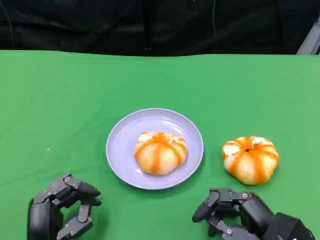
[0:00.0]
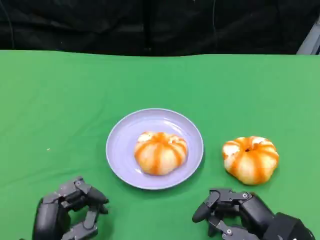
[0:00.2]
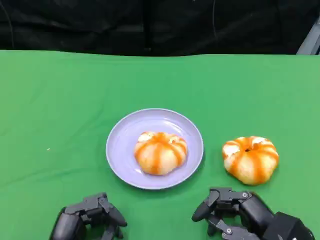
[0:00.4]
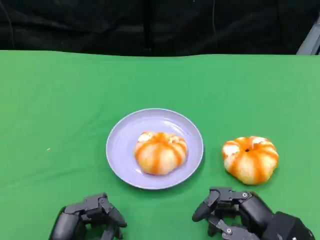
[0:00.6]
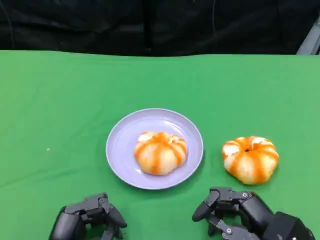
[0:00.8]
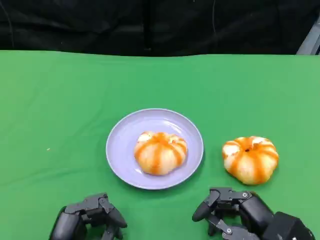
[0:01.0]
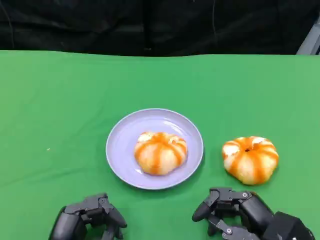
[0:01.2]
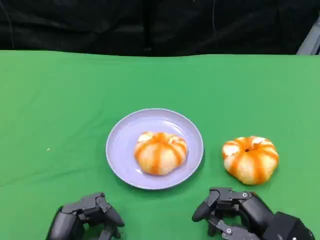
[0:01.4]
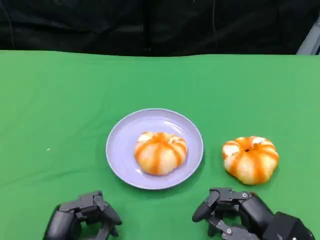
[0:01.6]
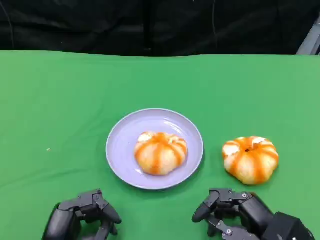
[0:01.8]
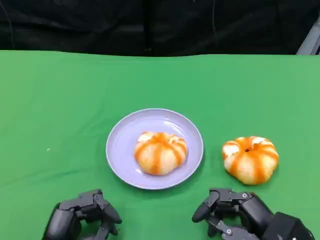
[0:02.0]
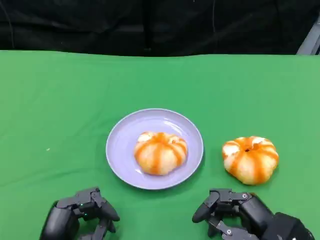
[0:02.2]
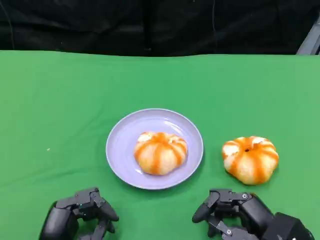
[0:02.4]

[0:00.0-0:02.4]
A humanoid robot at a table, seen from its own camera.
Task of the whole recording: Grasp the bread from the table and place it into the plate.
0:00.0 to 0:01.2: The hands stay close to where they were, moving slightly.
0:01.2 to 0:02.4: Both hands stay about where they are.

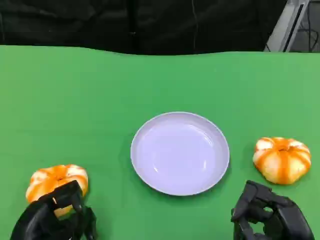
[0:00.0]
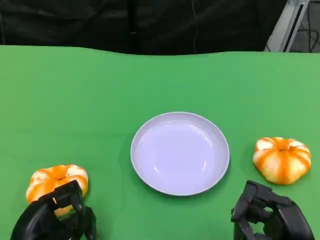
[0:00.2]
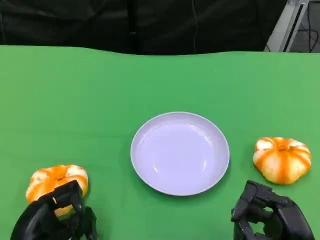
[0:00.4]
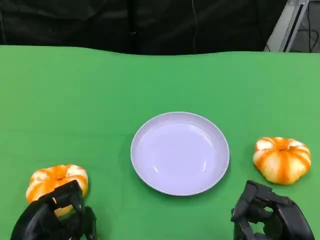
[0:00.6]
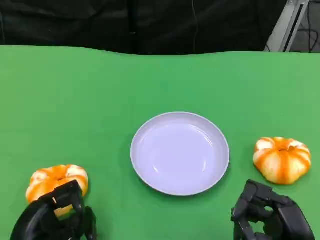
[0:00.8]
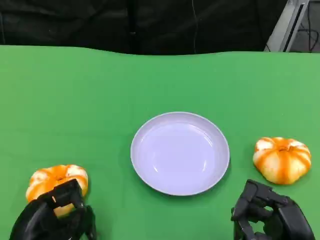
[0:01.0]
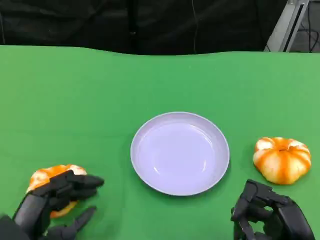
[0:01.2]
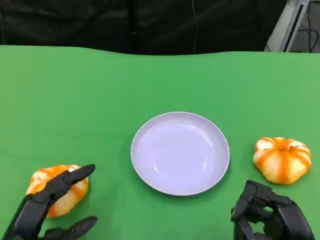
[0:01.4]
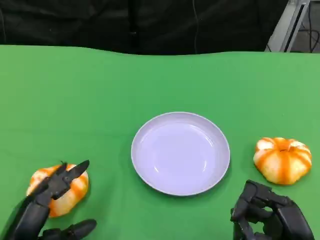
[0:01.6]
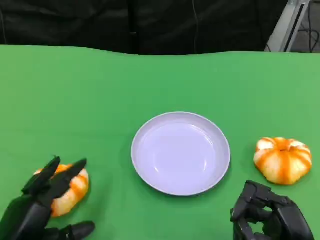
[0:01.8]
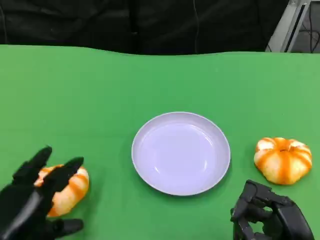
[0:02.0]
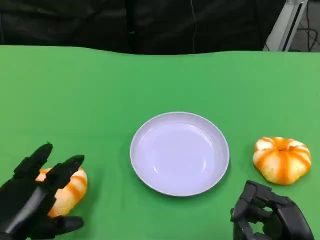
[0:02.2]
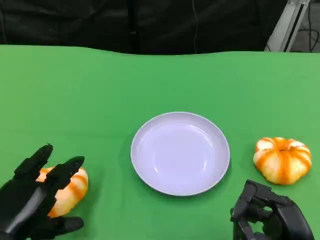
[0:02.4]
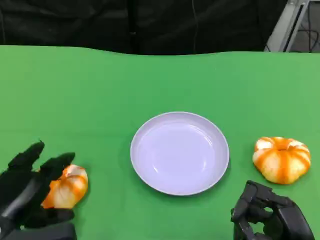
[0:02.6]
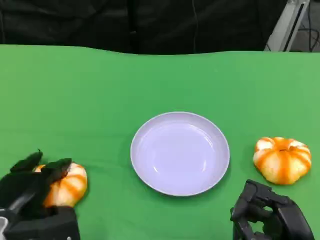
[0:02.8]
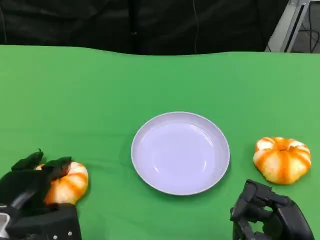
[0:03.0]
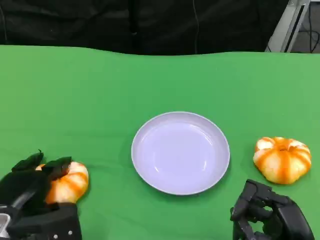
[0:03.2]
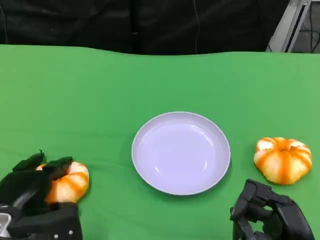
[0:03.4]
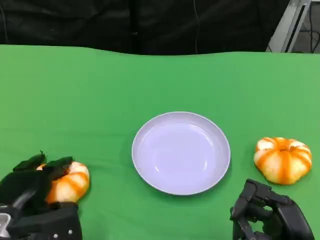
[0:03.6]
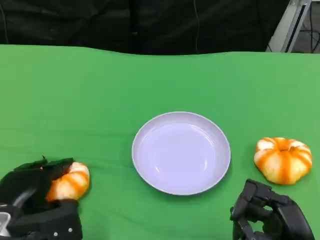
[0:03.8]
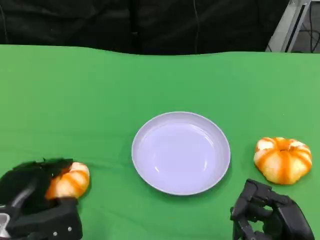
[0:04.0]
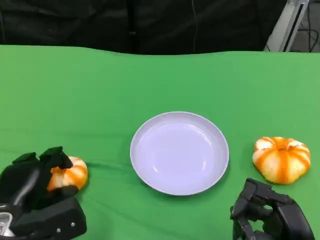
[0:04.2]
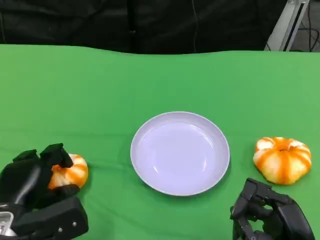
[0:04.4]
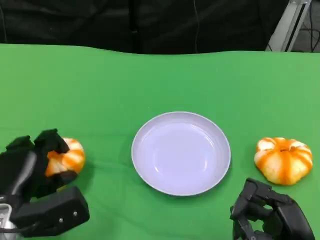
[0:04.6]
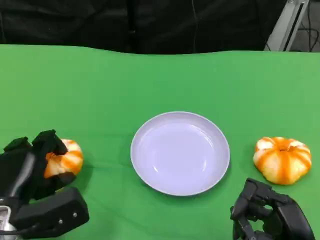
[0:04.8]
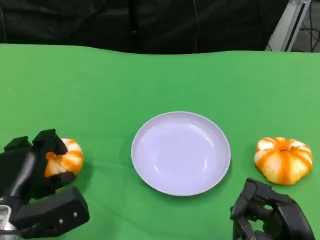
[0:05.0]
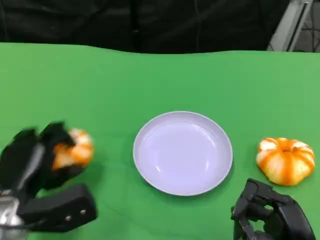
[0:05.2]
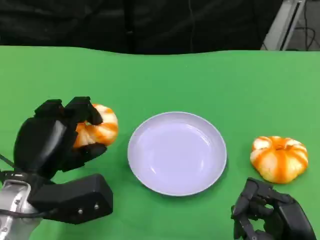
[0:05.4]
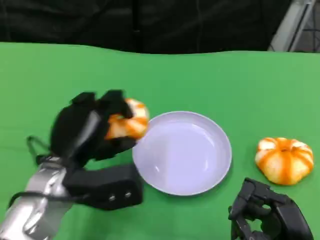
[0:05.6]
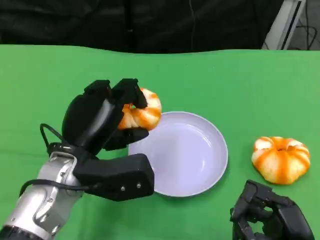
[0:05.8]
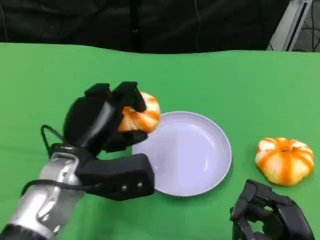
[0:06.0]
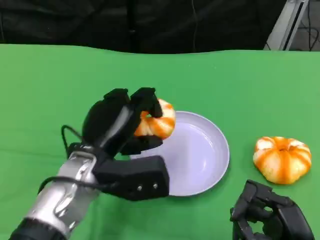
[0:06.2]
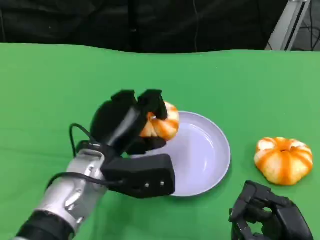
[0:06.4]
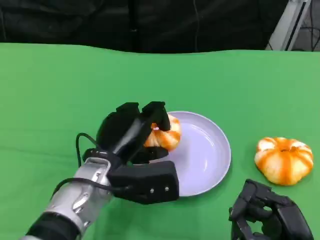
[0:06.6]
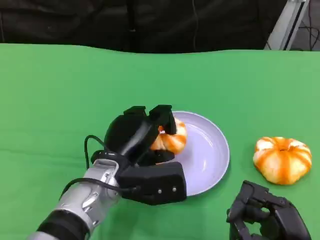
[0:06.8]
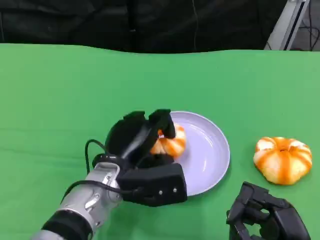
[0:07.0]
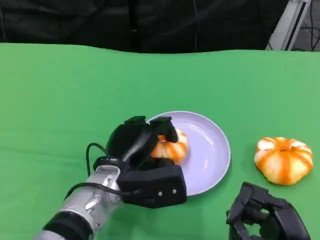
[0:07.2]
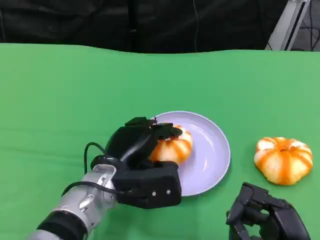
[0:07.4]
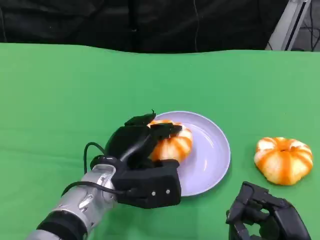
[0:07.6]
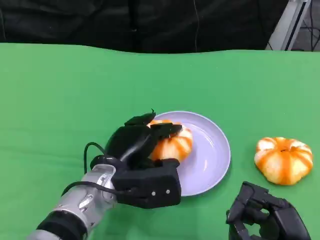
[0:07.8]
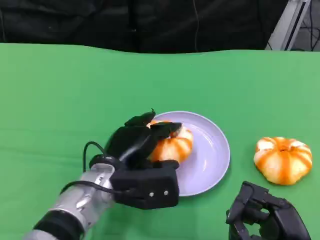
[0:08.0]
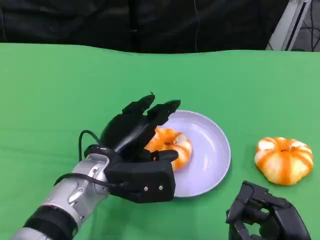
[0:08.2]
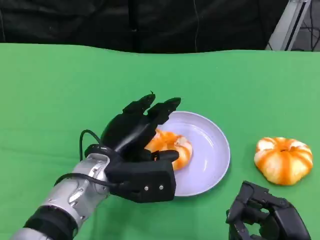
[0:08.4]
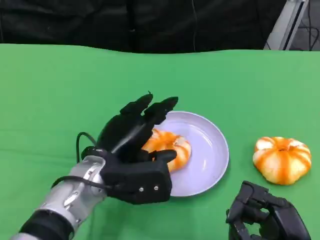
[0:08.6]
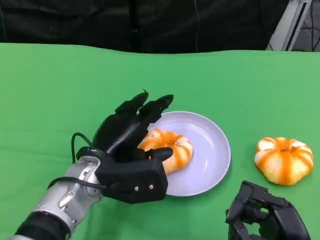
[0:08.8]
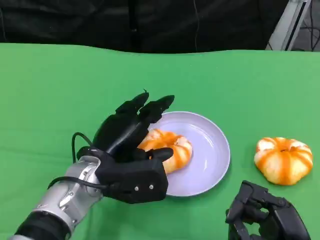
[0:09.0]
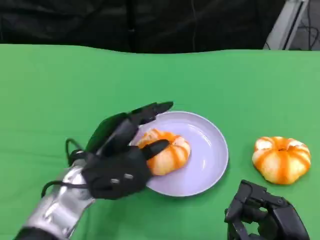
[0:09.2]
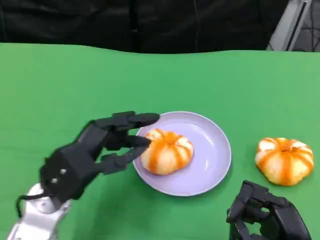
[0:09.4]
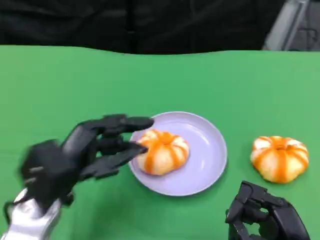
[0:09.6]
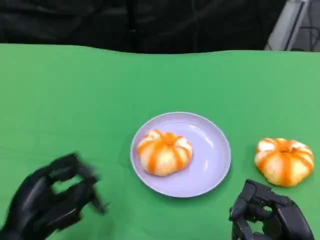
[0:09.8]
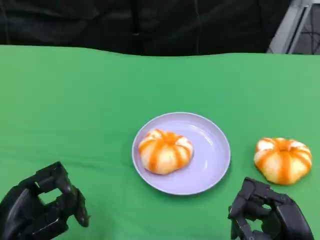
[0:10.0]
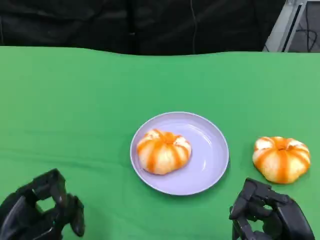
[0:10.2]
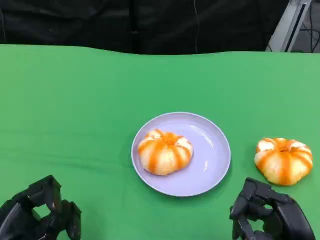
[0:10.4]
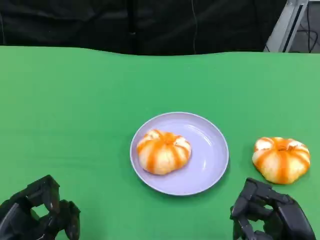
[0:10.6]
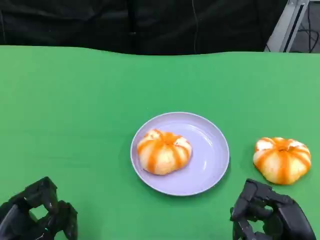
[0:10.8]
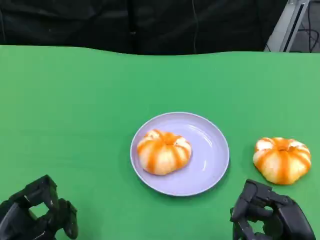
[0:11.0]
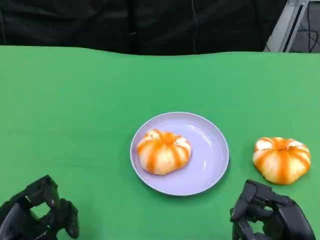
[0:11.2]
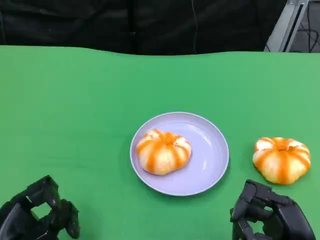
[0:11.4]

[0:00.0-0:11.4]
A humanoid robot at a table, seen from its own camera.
Task of the whole recording: Grasp the bread from the table and place it into the plate.
0:01.4 to 0:02.8: The left hand goes some 5 cm forward.
0:02.8 to 0:04.2: There are only small adjustments of the hands.
0:04.2 to 0:05.6: The left hand heads upward and to the right, covering some 10 cm.
0:05.6 to 0:07.2: The left hand moves to the right, some 5 cm.
0:07.2 to 0:08.6: There are only small adjustments of the hands.
0:08.6 to 0:10.0: The left hand goes roughly 20 cm to the left and backward.
0:10.0 to 0:11.4: The hands move only a little.

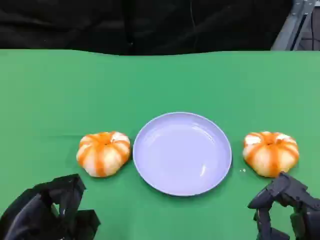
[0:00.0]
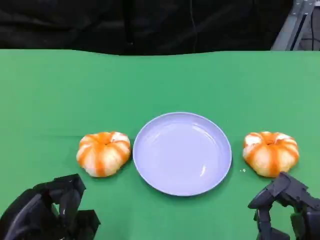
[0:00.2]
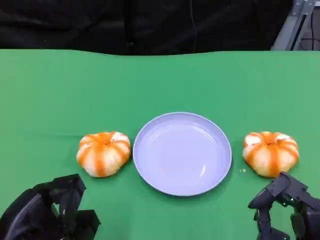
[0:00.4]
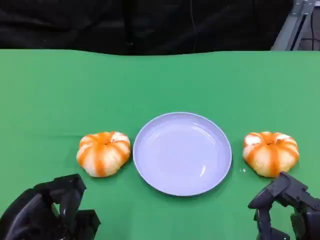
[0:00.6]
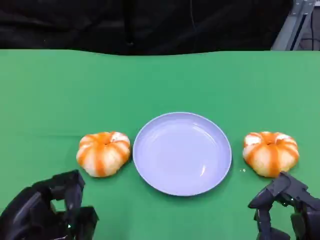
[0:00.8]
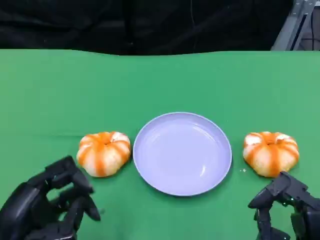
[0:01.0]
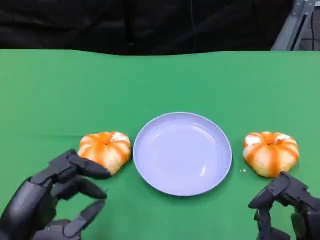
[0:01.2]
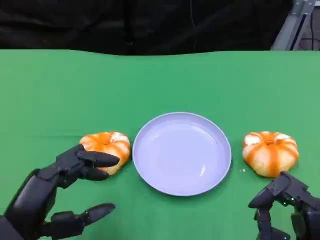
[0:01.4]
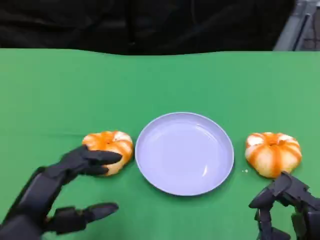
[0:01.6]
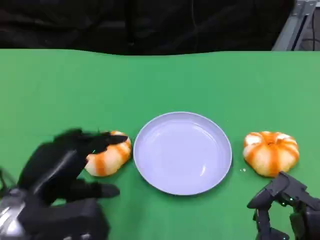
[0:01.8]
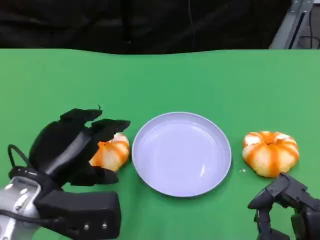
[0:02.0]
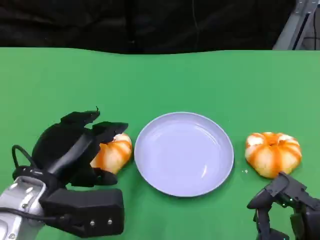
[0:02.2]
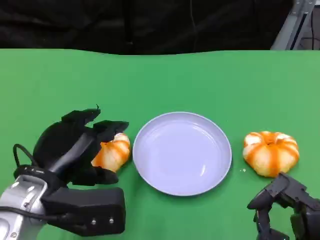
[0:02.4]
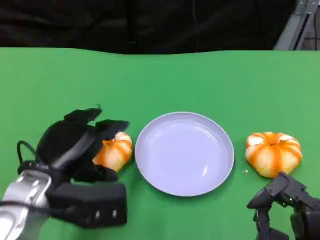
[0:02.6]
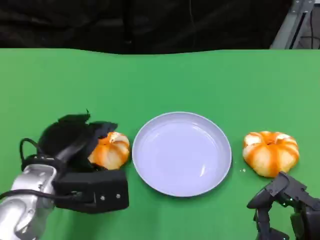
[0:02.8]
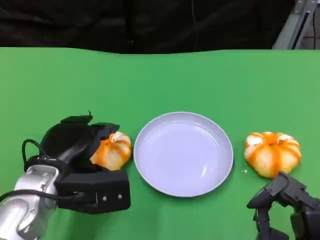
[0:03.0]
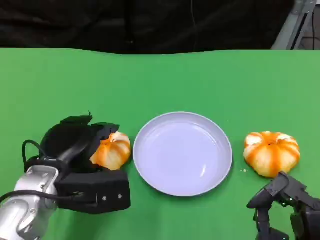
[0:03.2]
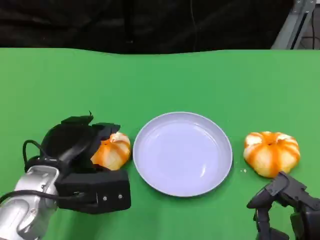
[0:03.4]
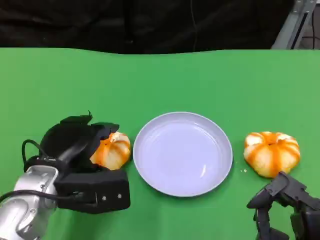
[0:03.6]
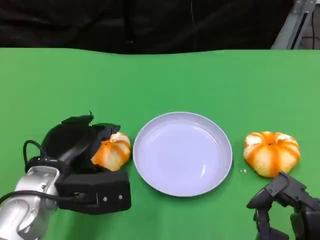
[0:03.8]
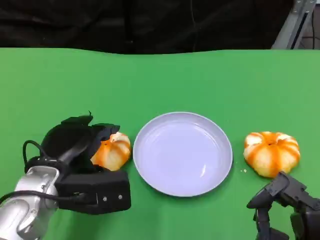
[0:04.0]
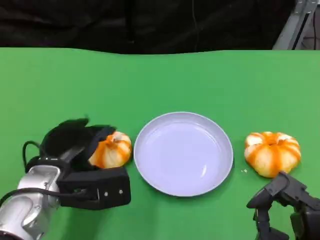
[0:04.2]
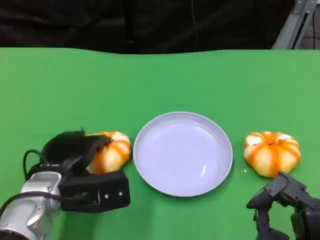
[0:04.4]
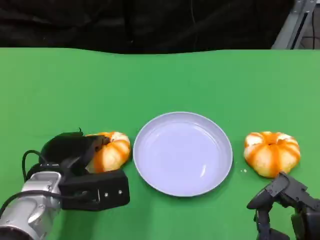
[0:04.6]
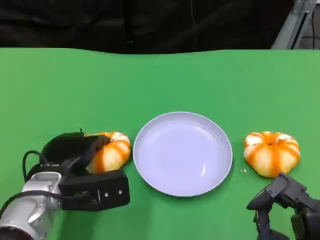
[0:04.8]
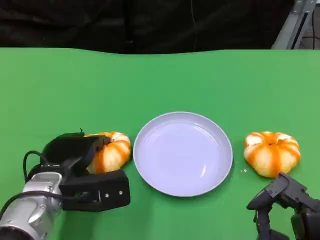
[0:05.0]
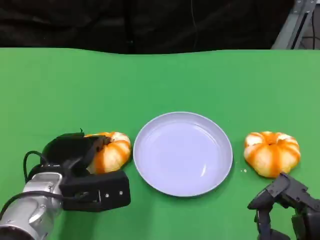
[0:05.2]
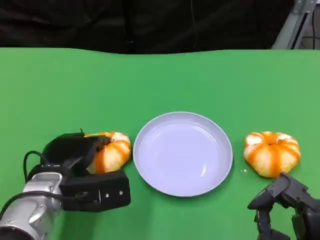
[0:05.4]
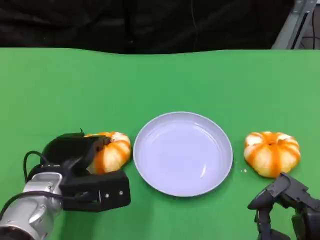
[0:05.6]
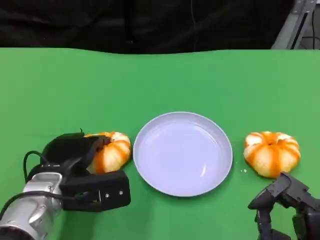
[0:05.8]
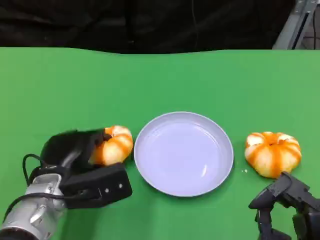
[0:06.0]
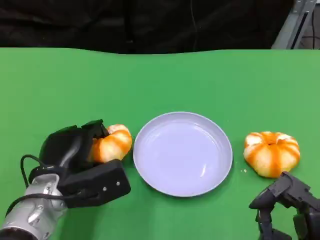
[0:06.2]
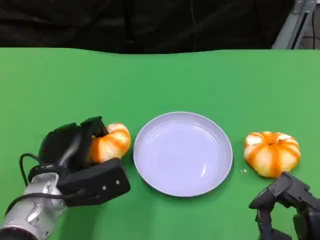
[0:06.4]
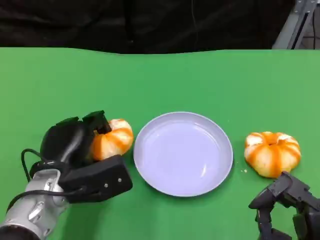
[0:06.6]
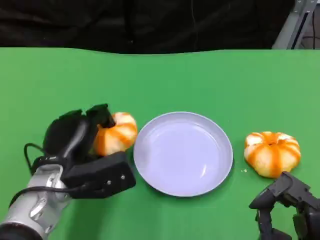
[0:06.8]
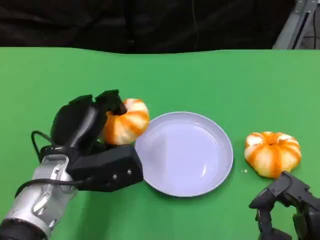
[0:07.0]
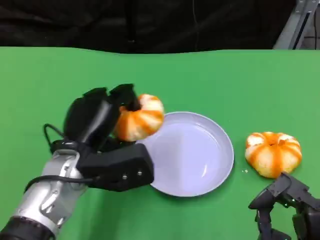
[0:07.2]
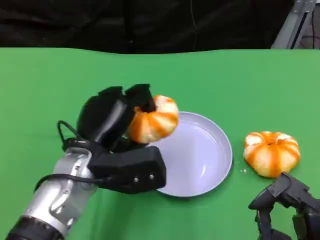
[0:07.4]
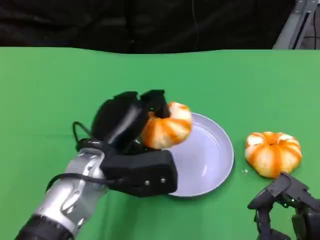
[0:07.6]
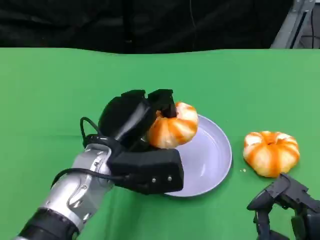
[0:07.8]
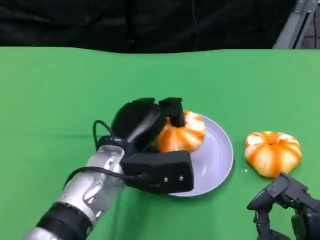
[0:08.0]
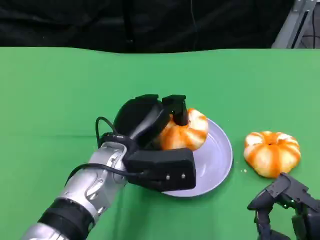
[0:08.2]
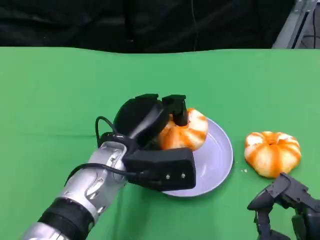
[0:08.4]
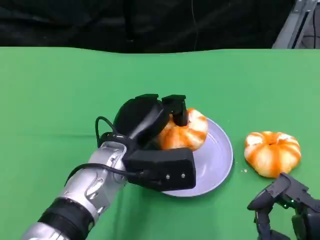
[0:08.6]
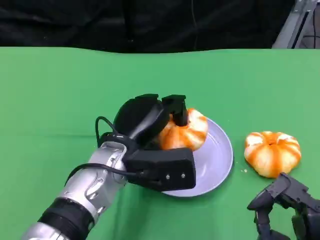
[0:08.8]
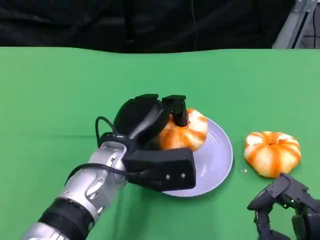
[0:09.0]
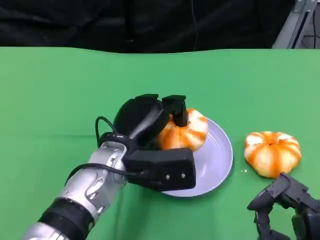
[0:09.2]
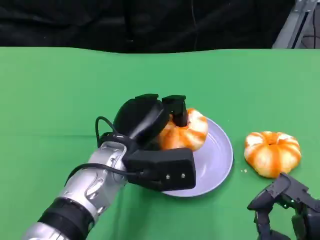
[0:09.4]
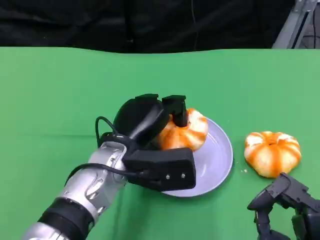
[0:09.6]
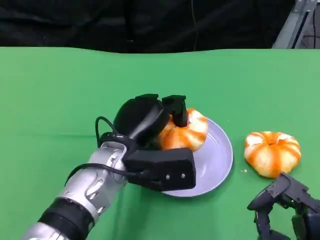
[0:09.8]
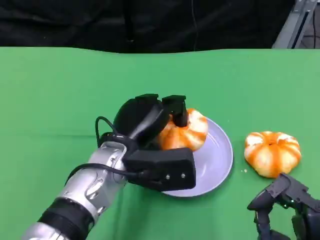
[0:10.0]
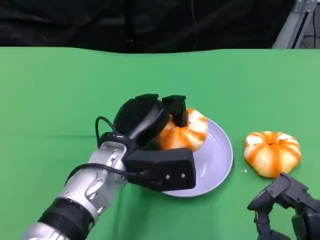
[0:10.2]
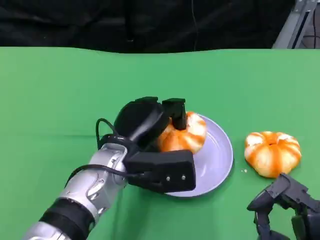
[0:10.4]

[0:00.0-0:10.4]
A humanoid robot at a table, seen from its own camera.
Task of the whole recording: Grasp the bread from the table and place it into the plate.
0:01.4 to 0:03.0: The left hand shifts some 10 cm forward.
0:03.0 to 0:06.0: There are only small adjustments of the hands.
0:06.0 to 0:07.4: The left hand goes some 10 cm upward and to the right.
0:09.0 to 0:10.4: Both hands stay about where they are.
